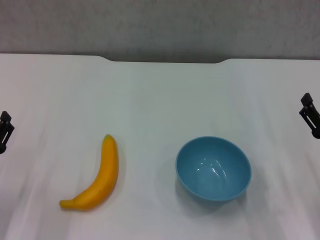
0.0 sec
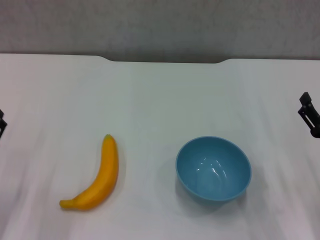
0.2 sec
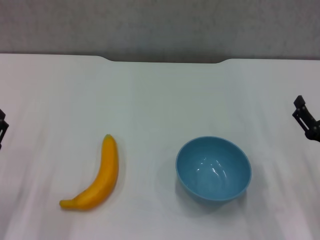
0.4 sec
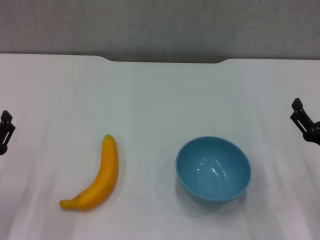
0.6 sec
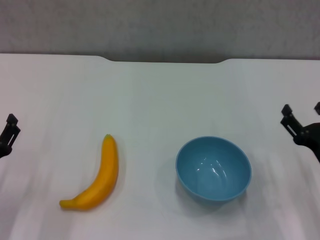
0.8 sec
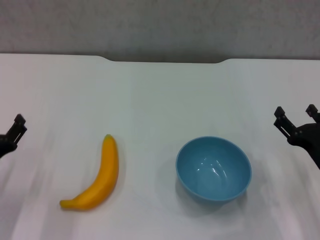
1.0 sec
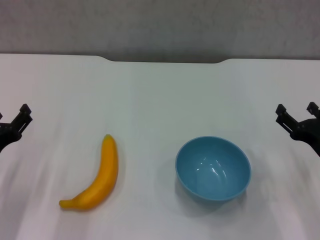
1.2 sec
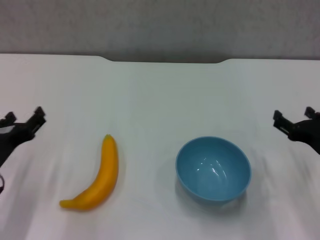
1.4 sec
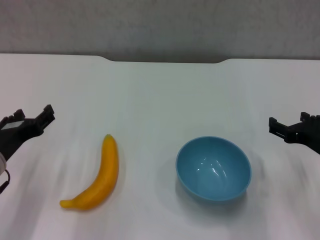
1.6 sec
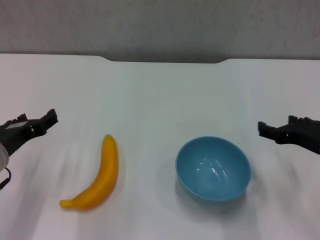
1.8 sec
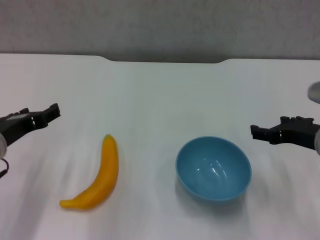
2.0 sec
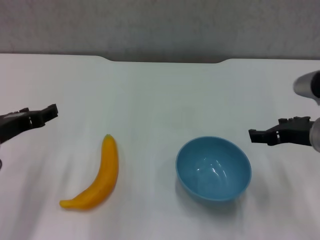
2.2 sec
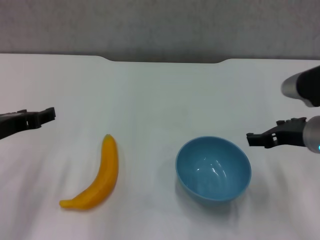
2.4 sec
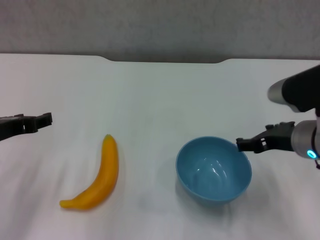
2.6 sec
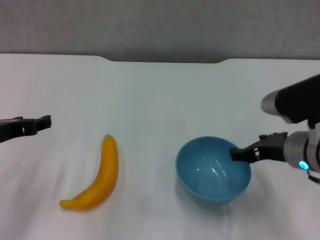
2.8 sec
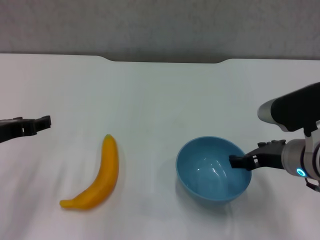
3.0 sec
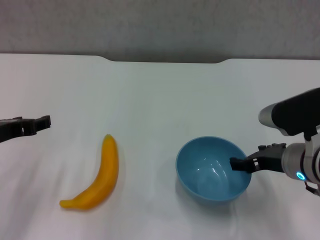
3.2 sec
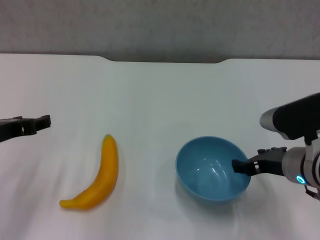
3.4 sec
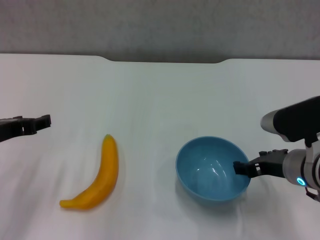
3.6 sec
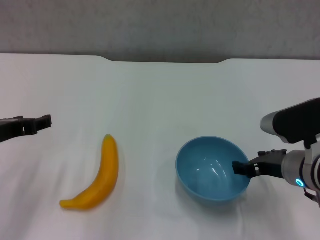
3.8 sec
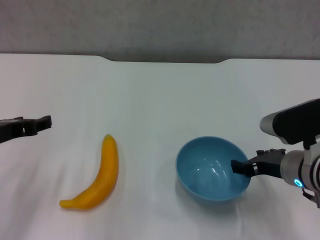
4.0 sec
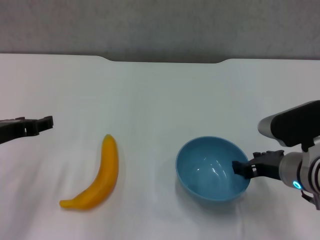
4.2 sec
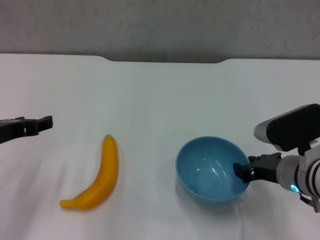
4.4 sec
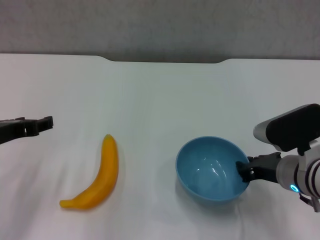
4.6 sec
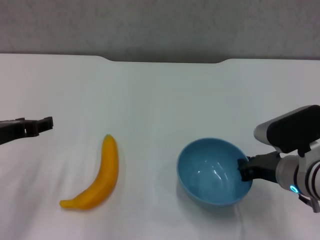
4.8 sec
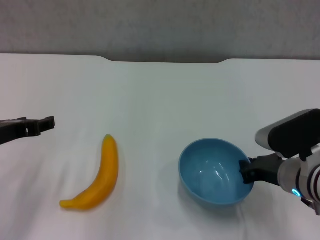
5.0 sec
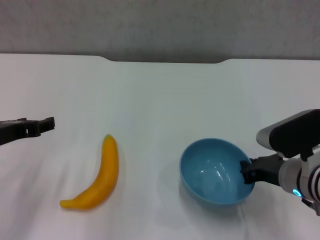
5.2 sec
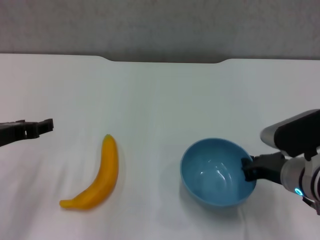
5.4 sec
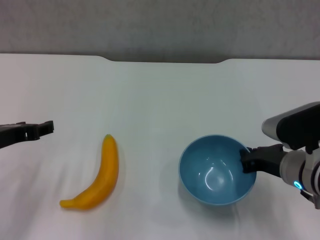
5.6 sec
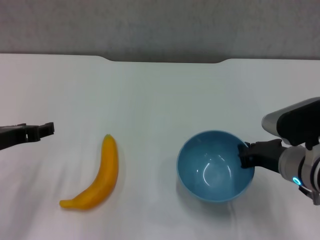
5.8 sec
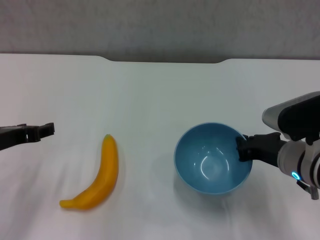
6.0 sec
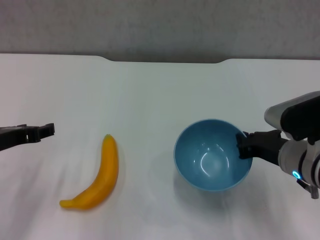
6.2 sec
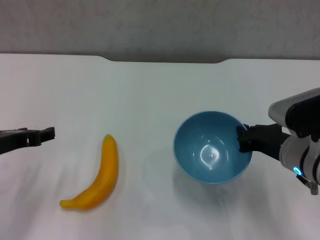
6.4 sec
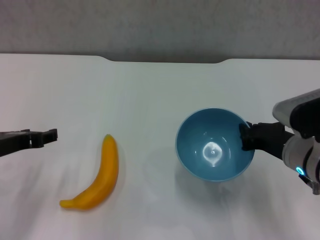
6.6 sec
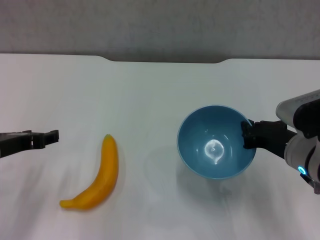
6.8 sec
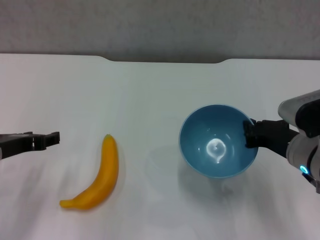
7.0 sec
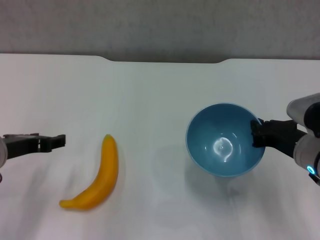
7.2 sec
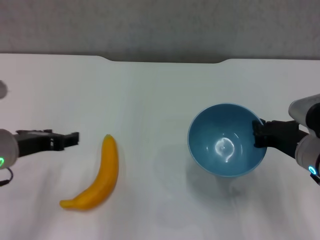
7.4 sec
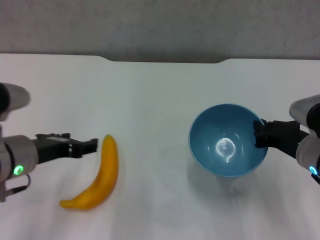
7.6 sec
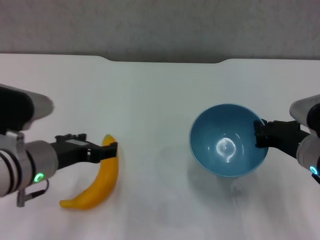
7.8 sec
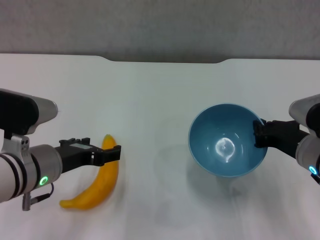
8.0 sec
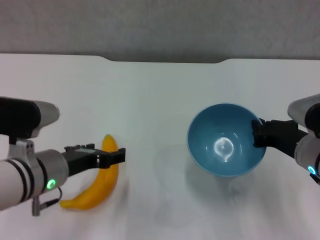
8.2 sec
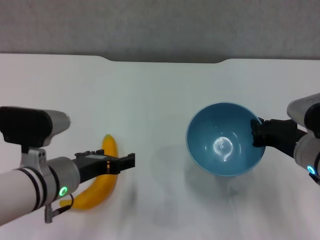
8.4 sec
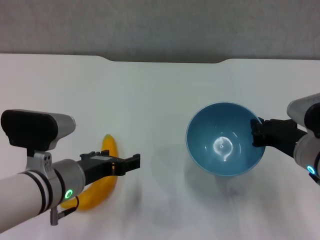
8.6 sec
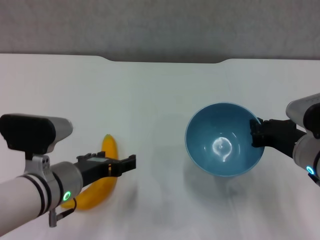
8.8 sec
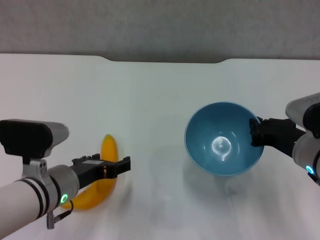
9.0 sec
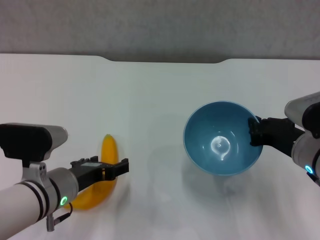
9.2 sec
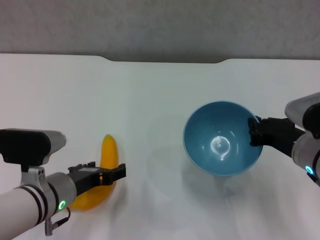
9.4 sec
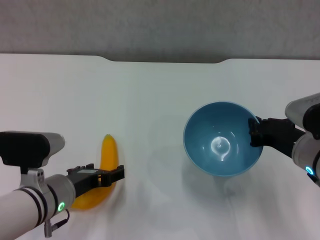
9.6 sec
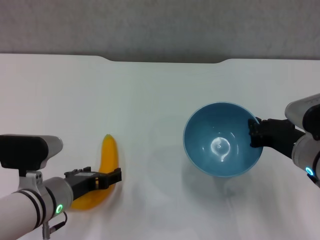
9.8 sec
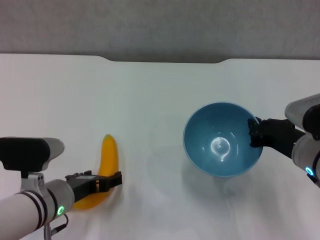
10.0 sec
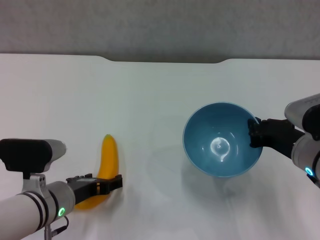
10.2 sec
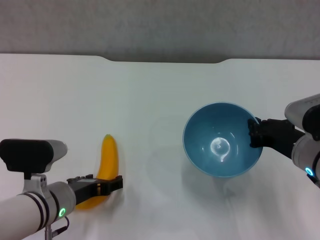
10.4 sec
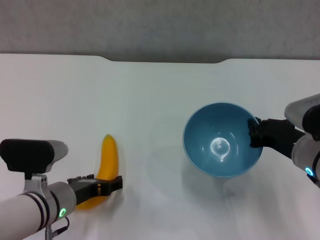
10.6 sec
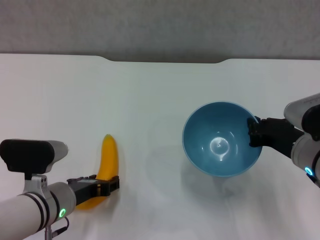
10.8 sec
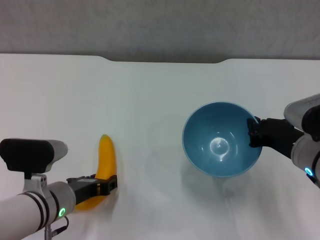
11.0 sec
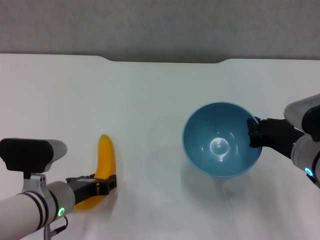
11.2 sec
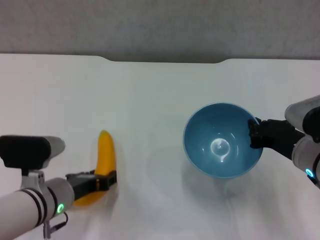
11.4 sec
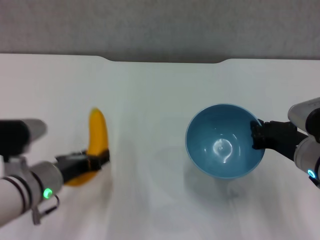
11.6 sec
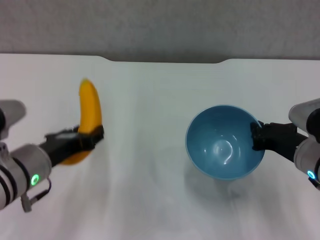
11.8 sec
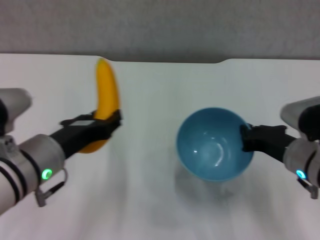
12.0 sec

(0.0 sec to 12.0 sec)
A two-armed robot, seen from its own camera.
Step, 0.0 sec - 4.8 sec: Grasp the blue bowl with right gripper.
Step, 5.0 sec - 7.2 sec: Lift the blue bowl with right gripper.
Step, 7.4 sec - 11.0 sec: Grasp the banana with left gripper.
0.0 sec - 1.6 sec: The two grippers go roughly 5 cm upward.
1.6 sec - 3.0 sec: The left gripper is displaced upward by roughly 5 cm. Meanwhile the right gripper goes roughly 5 cm to the left.
3.0 sec - 4.4 sec: The grippers stay close to where they were, moving slightly.
4.4 sec - 6.0 sec: The right gripper closes.
6.0 sec - 7.6 sec: The left gripper moves to the right, some 5 cm.
7.6 sec - 9.0 sec: The left gripper is displaced downward by some 5 cm, and opens up.
9.0 sec - 10.4 sec: The grippers make only small movements.
10.4 sec - 12.0 sec: The left gripper goes approximately 10 cm upward, and closes.

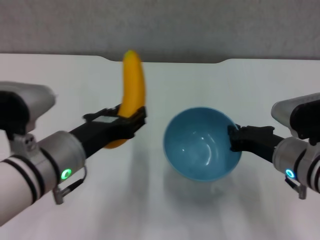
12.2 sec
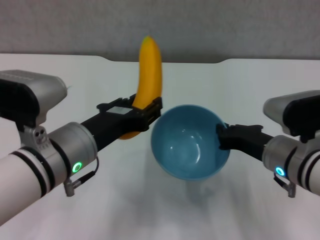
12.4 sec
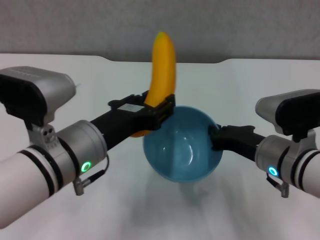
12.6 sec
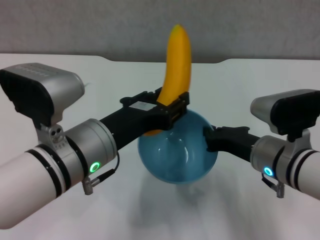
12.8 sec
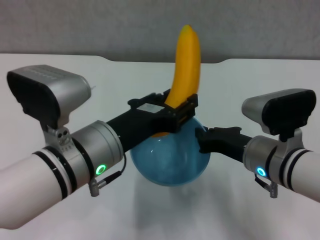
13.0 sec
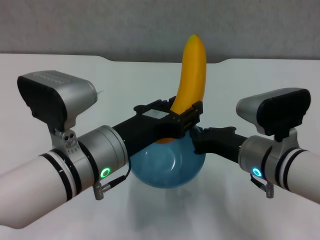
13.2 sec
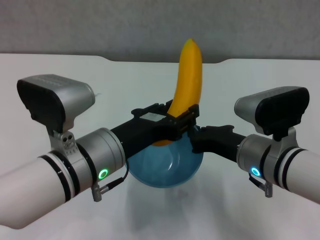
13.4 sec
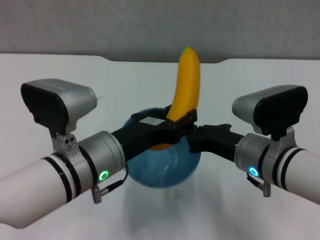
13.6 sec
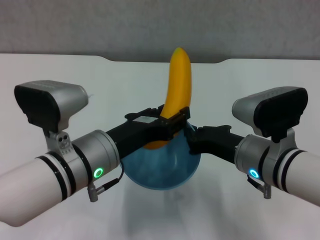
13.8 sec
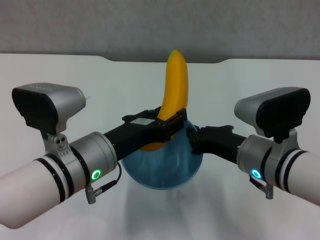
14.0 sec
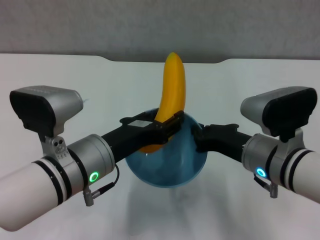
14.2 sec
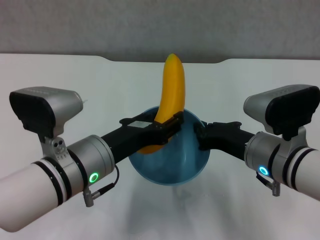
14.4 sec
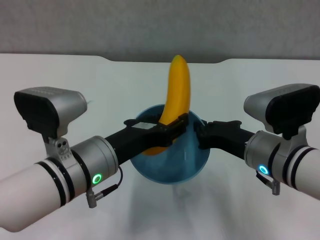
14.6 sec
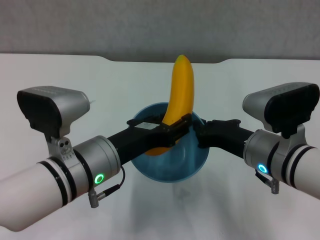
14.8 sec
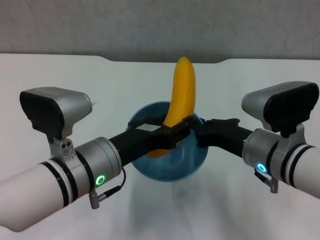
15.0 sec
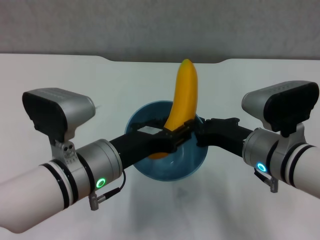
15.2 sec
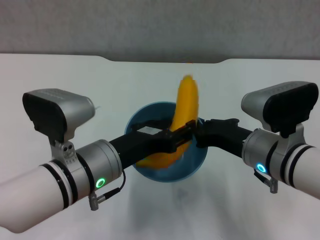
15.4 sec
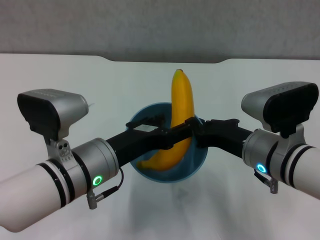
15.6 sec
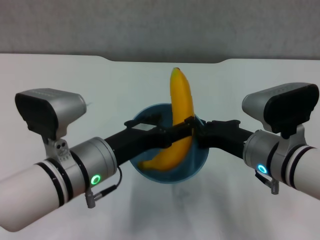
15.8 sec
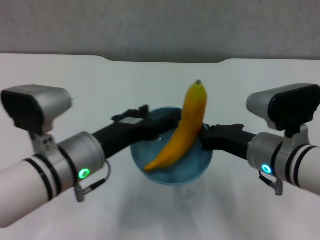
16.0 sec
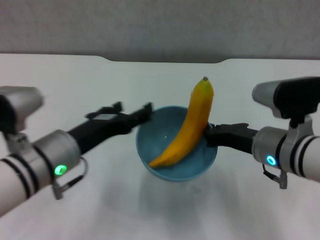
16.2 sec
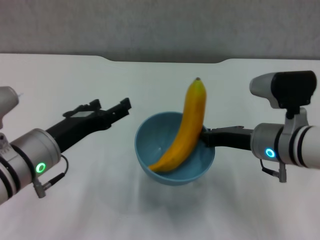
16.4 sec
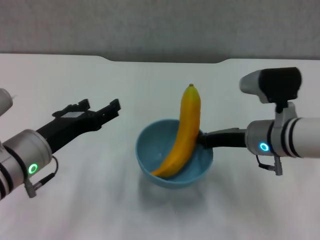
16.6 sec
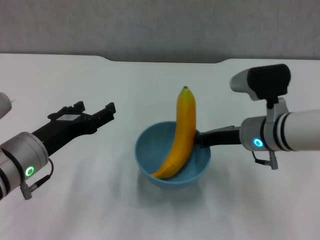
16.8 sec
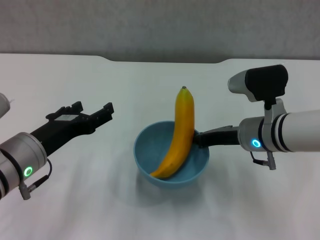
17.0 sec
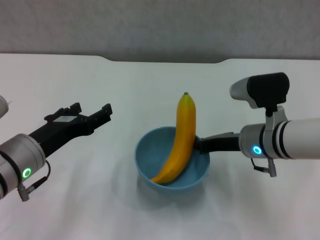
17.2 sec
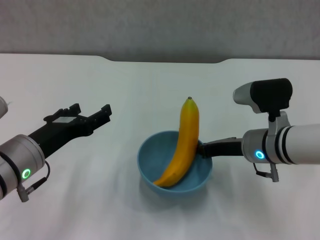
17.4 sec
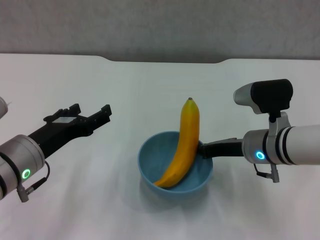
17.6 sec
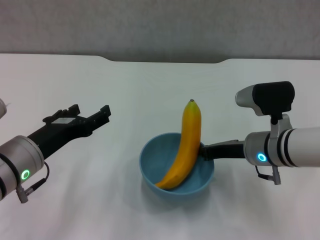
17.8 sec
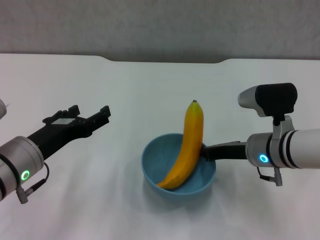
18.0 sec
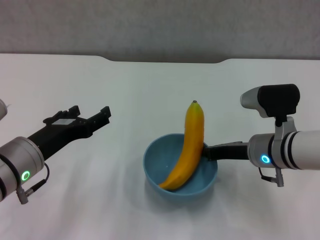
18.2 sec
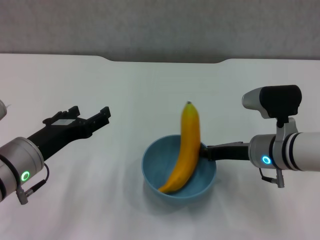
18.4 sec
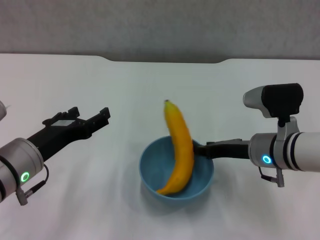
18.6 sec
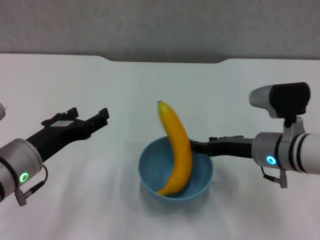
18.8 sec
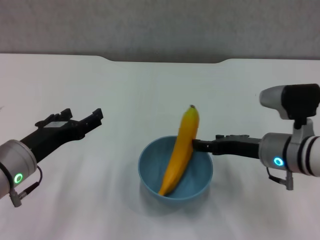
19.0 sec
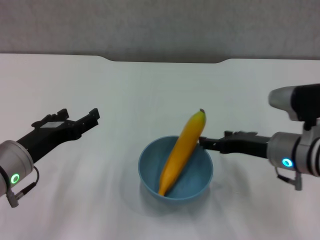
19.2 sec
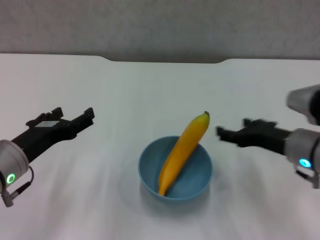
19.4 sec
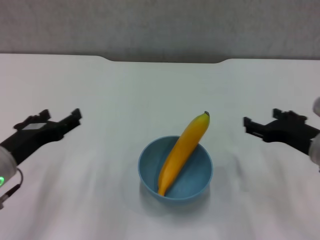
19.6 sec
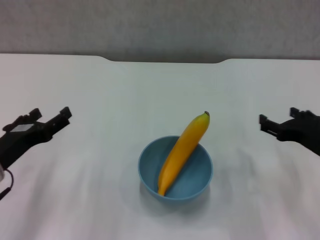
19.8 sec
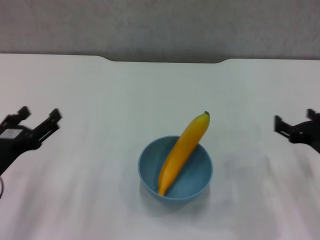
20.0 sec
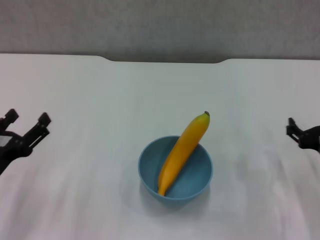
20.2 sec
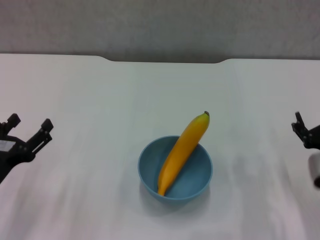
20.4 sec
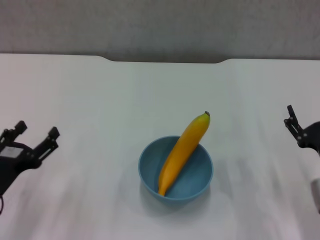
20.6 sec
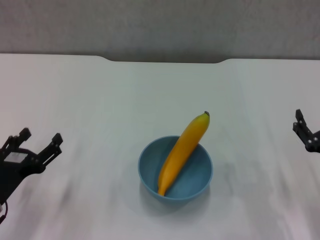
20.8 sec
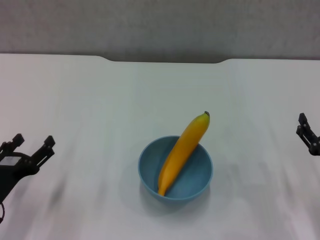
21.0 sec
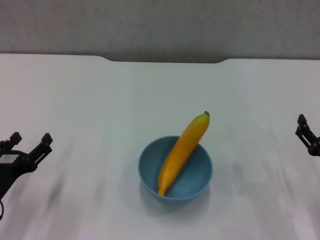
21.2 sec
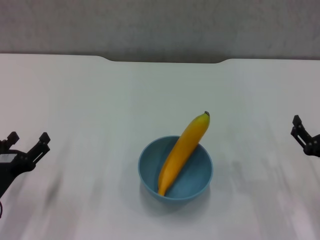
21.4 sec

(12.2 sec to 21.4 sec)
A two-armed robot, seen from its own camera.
Step, 12.2 sec - 16.0 sec: Place the banana in the blue bowl with left gripper.
Step, 16.2 sec - 19.2 sec: Place the bowl on the table with right gripper.
12.2 sec - 13.8 sec: The right gripper goes roughly 5 cm to the left.
15.2 sec - 16.8 sec: The left gripper travels to the left by about 10 cm, and opens up, while the right gripper travels forward by some 5 cm.
16.8 sec - 18.4 sec: The grippers stay close to where they were, moving slightly.
18.4 sec - 19.8 sec: The right gripper travels to the right and backward by some 10 cm, and opens; the left gripper travels to the left by approximately 5 cm.
19.8 sec - 21.4 sec: Both grippers travel together downward, roughly 5 cm.
